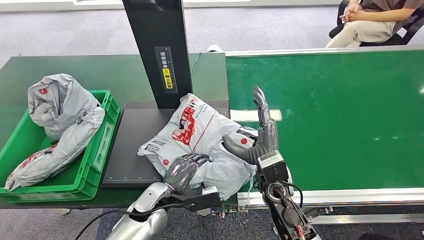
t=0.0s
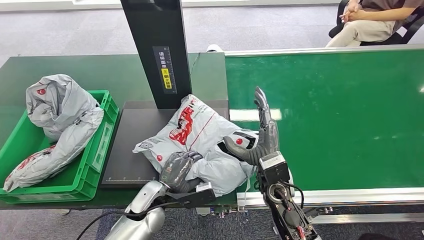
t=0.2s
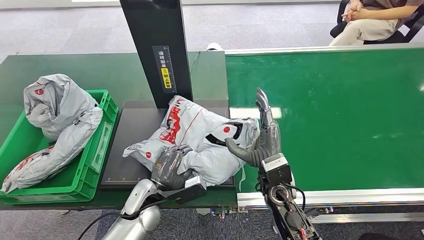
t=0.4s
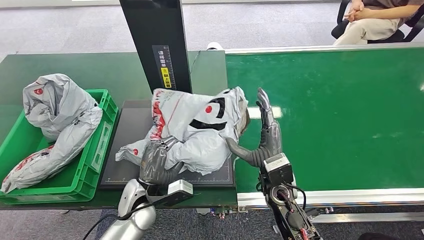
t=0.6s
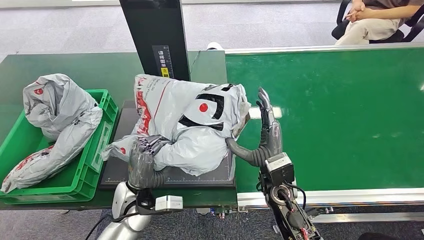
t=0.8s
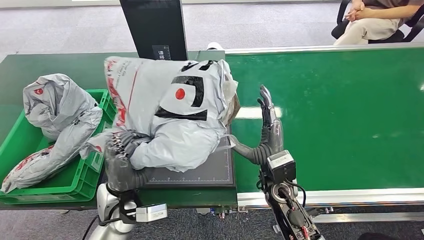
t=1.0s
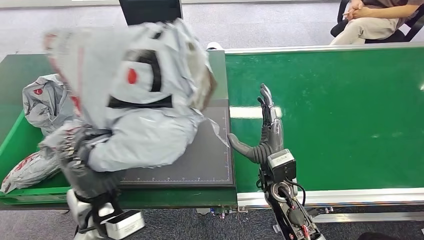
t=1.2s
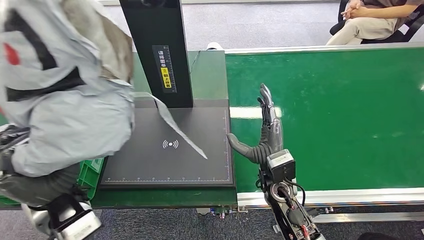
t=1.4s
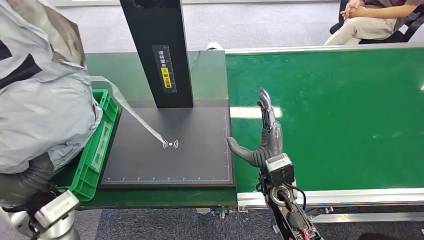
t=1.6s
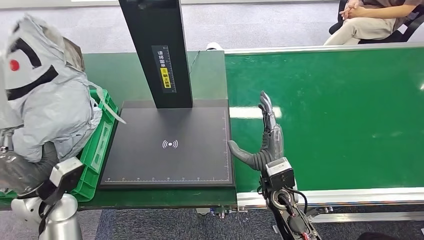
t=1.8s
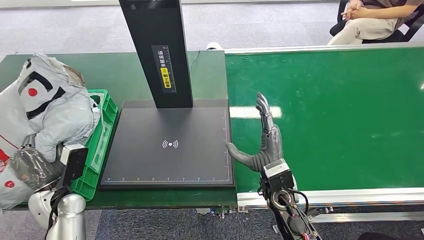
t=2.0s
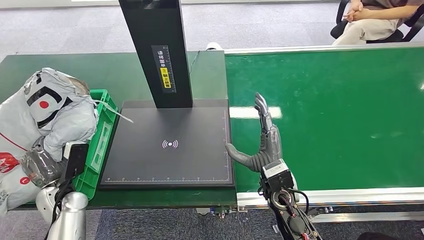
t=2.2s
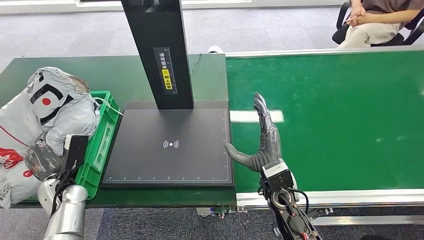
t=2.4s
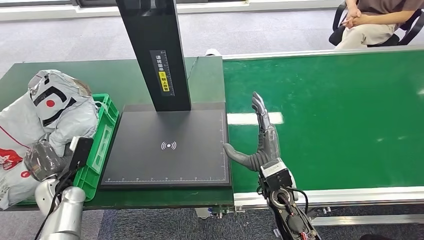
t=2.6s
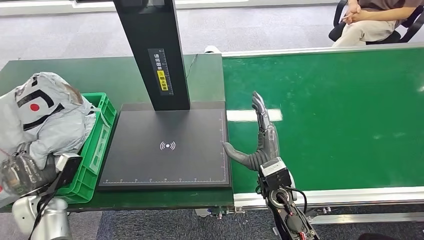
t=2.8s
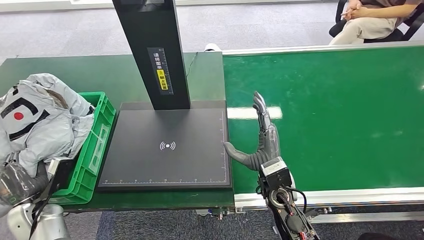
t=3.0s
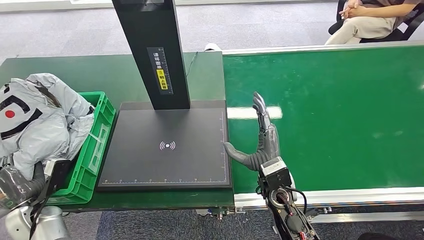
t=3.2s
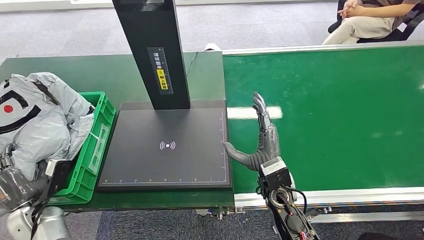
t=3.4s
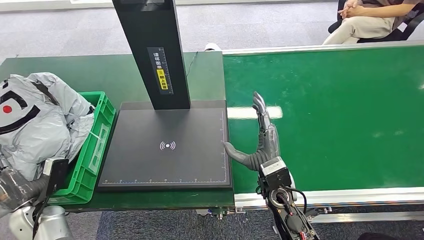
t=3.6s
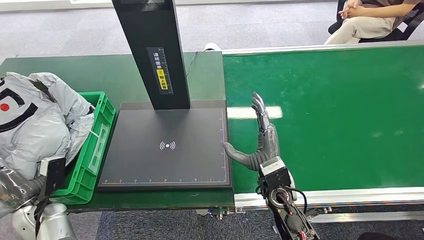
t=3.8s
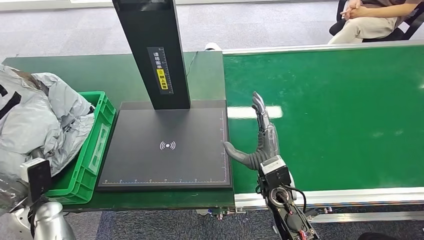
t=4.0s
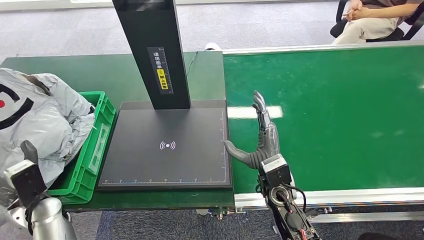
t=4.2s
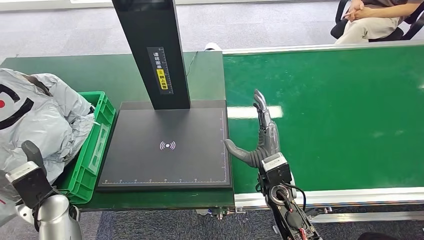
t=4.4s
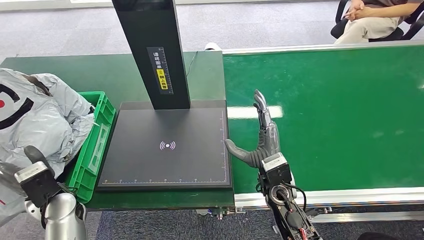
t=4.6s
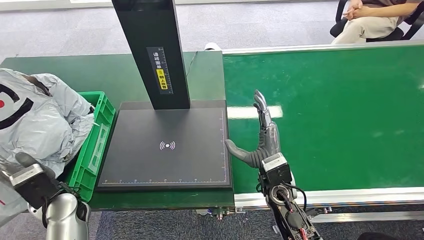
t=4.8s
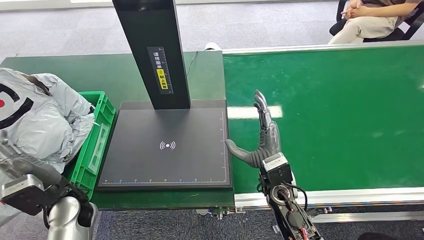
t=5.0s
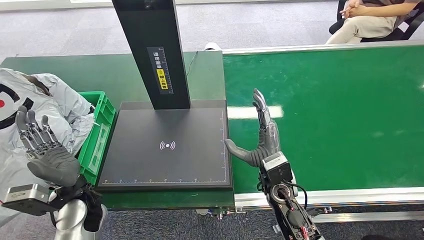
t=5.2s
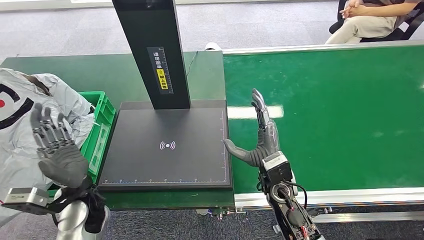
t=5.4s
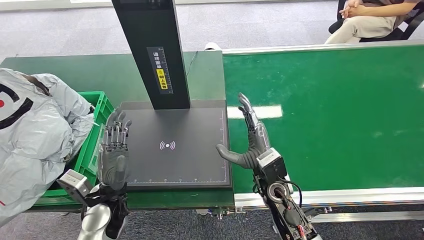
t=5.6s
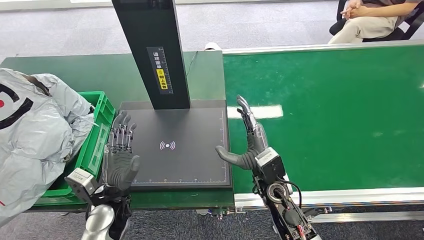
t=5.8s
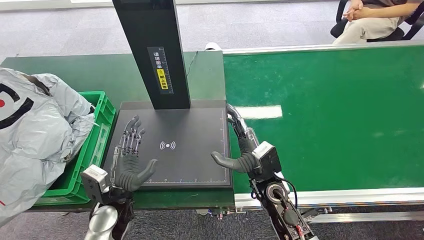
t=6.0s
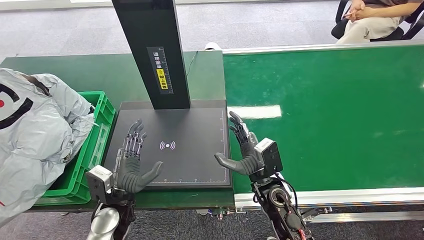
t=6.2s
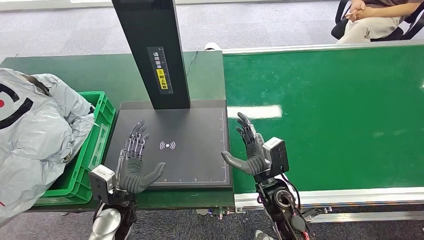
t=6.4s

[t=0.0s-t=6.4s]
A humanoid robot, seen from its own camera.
Step, t=1.6s to t=6.4s: Place the package into the parcel locker.
t=3.2s to t=4.8s: The left hand heads to the right and upward, covering about 10 cm.
t=4.8s to t=6.4s: The left hand is displaced to the right and downward by about 15 cm.

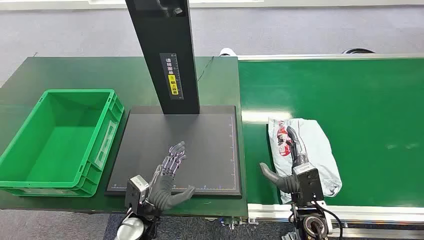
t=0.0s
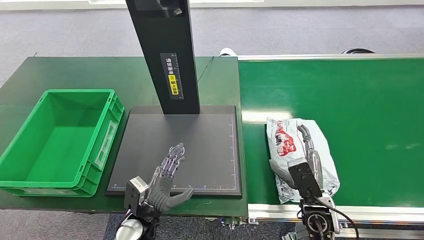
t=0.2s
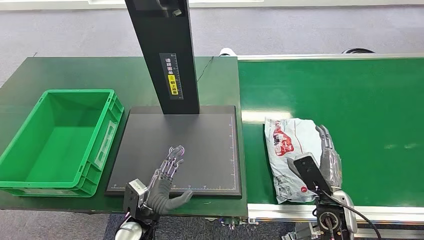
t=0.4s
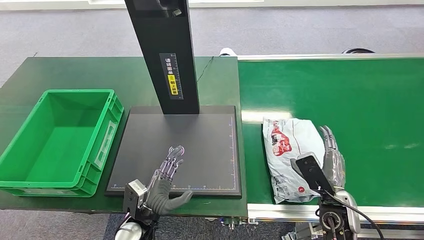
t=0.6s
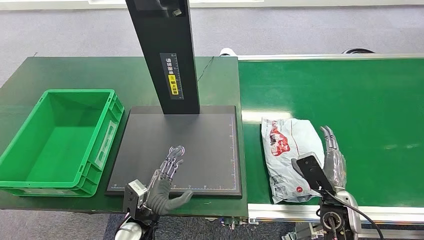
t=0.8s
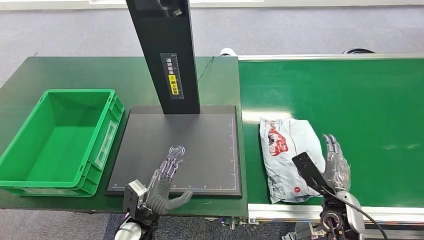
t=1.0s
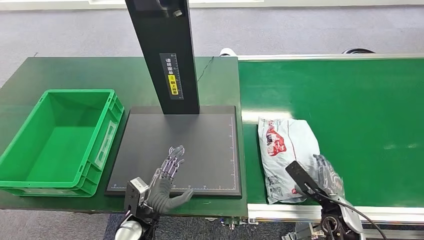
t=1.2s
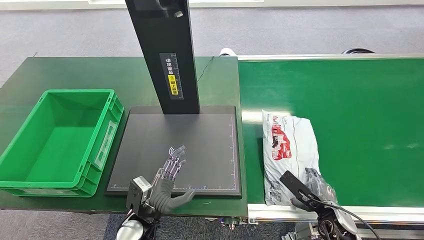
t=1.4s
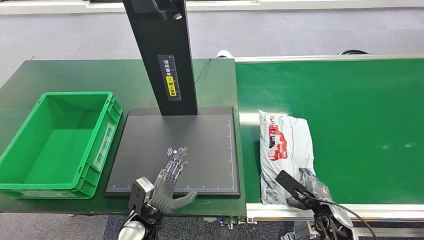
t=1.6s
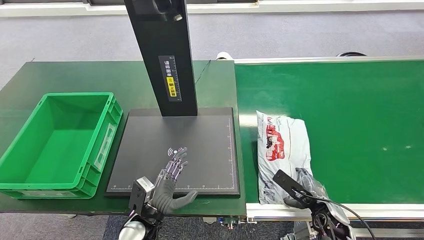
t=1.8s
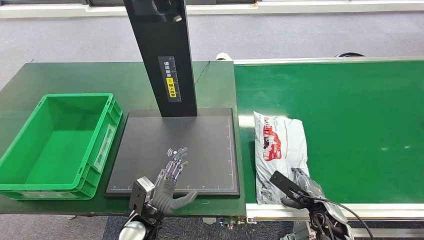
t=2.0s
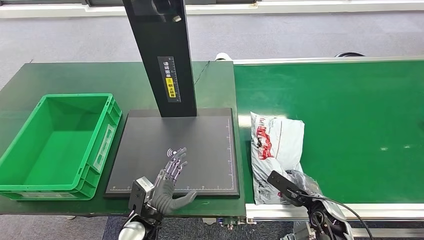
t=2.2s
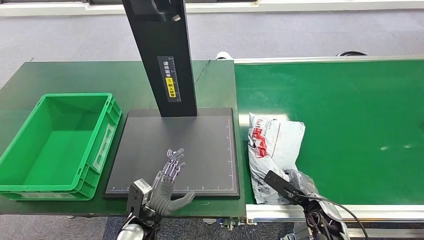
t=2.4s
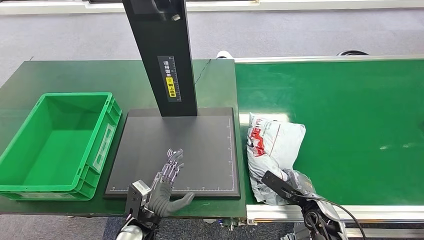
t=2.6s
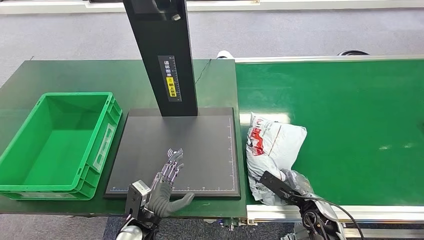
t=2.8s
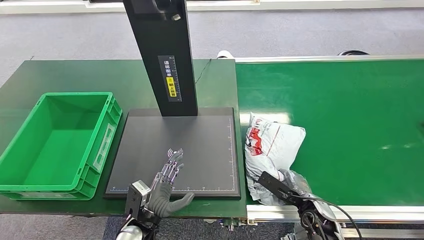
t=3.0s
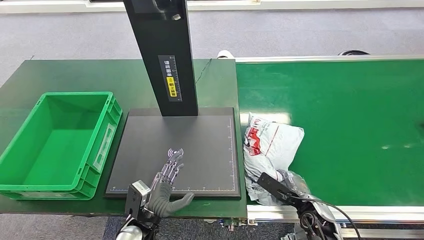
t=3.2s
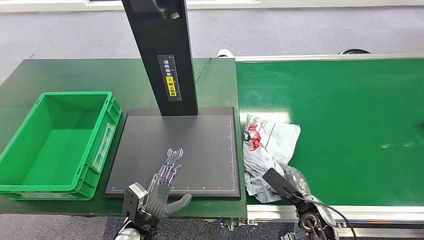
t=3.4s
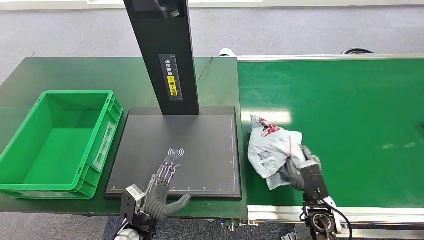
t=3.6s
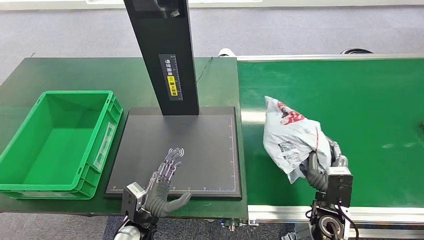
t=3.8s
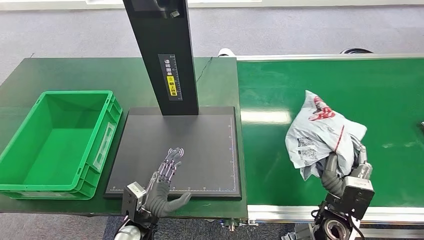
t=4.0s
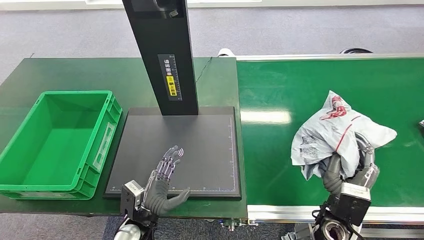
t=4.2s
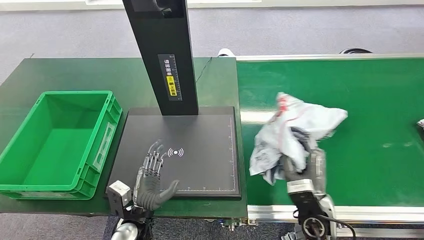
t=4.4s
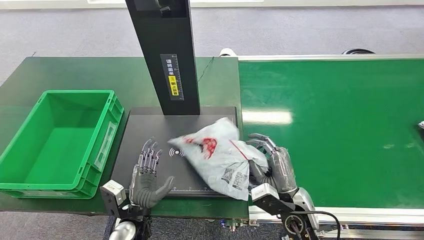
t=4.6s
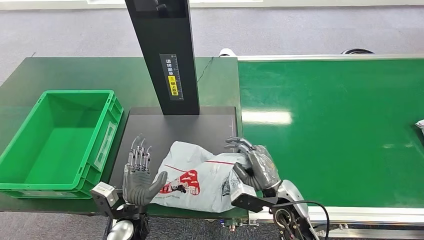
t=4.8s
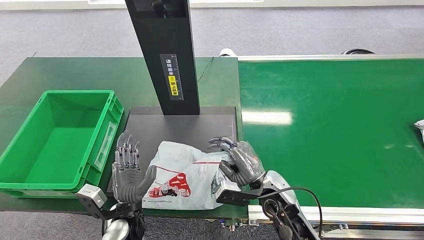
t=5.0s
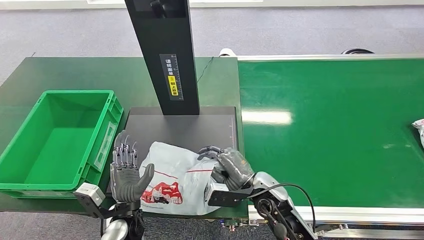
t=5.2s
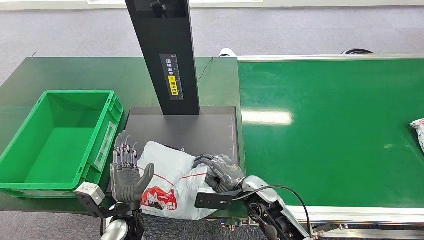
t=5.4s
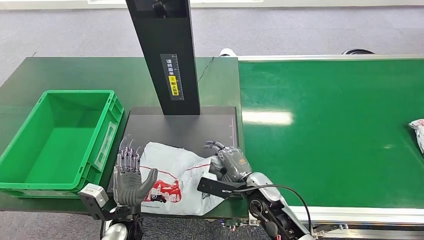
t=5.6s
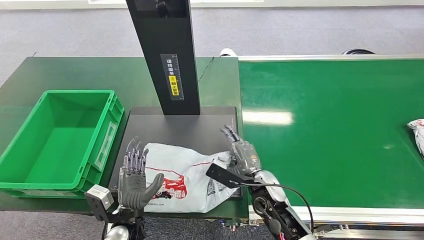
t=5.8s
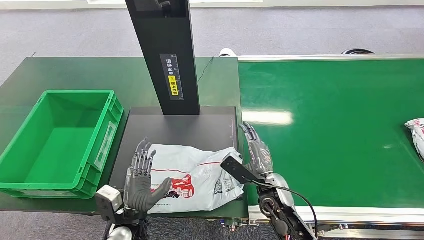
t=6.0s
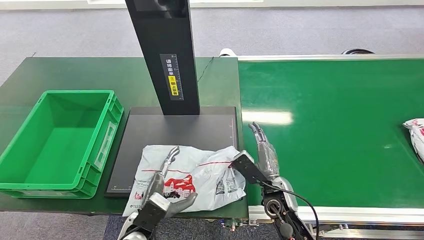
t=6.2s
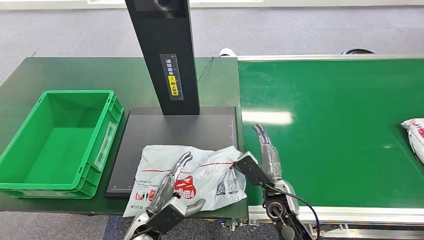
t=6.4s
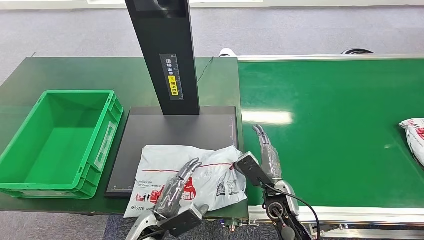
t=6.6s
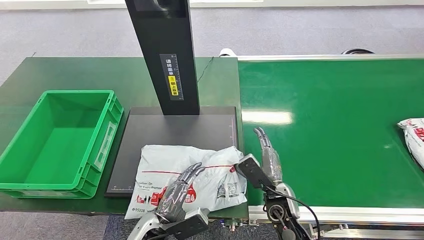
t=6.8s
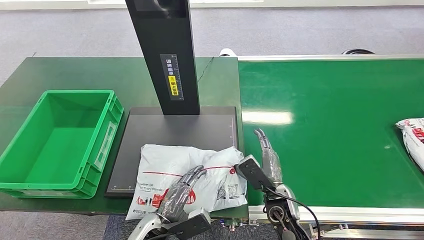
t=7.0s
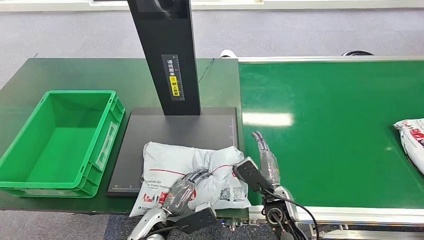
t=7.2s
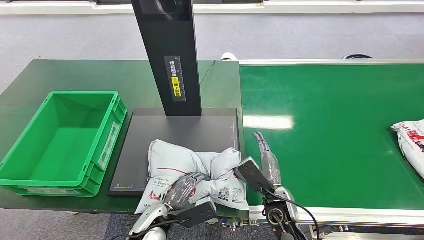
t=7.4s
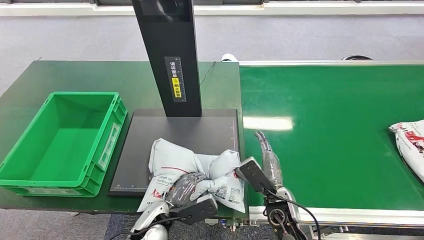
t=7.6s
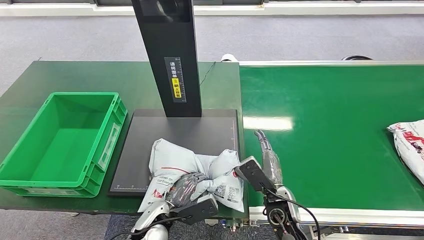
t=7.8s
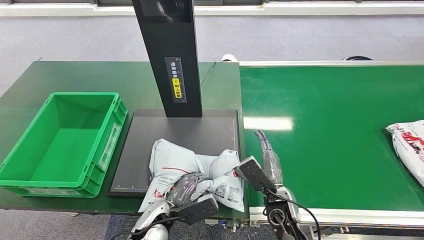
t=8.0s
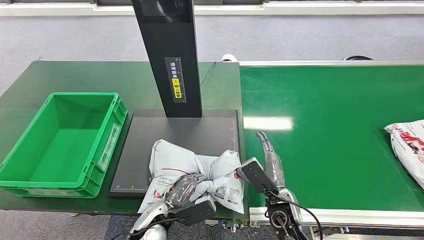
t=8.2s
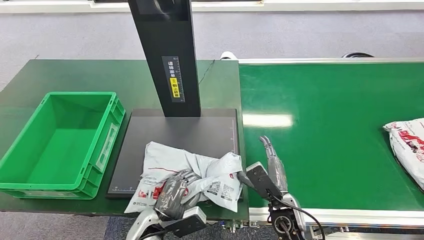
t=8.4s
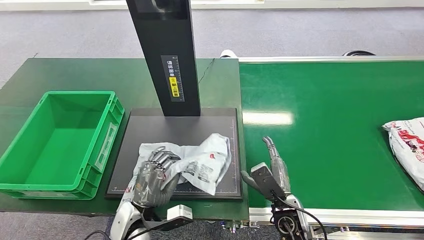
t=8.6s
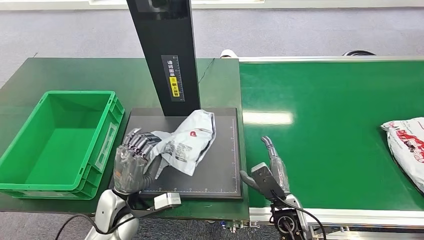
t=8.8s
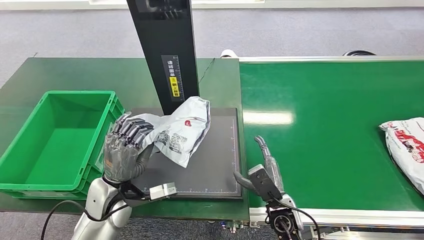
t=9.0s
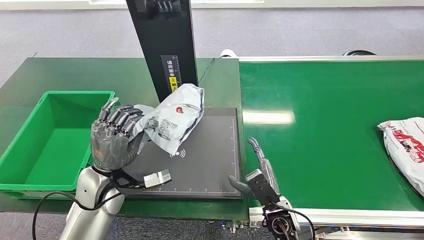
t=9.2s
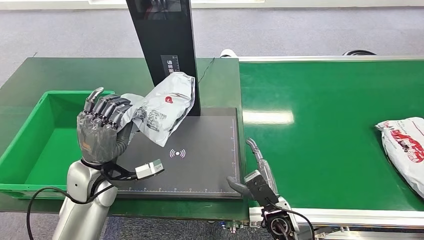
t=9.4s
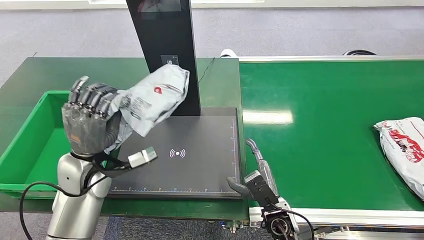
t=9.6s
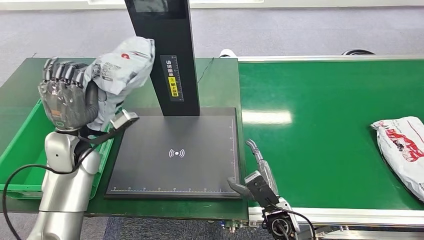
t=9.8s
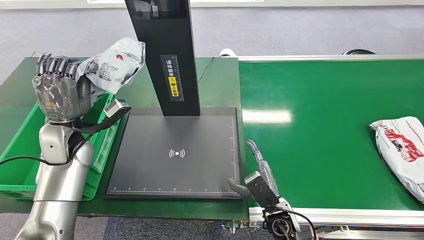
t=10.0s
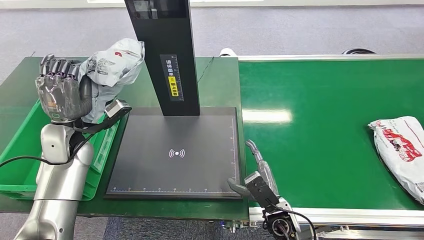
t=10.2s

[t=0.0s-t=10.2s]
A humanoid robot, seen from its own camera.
Step, t=0.0s to t=4.2s: Pick up the package from the conveyor belt.
Step, t=4.4s to t=6.8s: Place the package onto the inbound machine.
Step, t=7.0s to t=9.0s: Pick up the package from the inbound machine.
t=3.0s to t=4.4s: The right hand travels upward and to the left by approximately 10 cm.
t=5.8s to t=7.2s: The left hand ends up about 5 cm from where it was.
